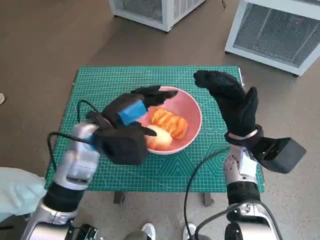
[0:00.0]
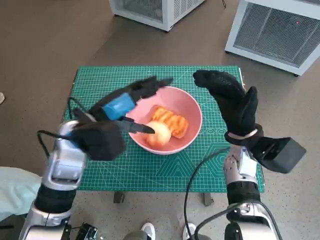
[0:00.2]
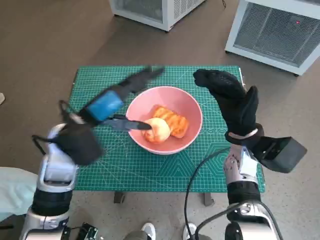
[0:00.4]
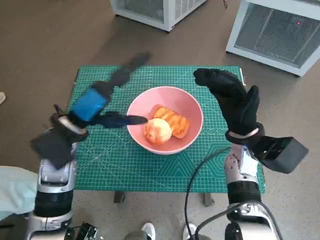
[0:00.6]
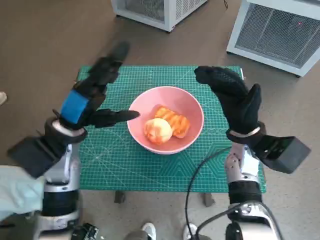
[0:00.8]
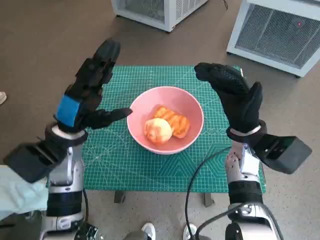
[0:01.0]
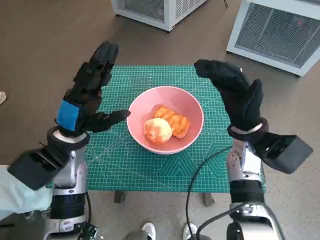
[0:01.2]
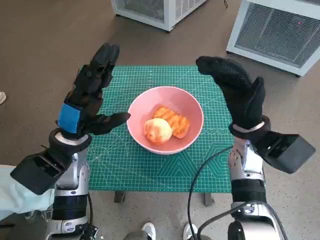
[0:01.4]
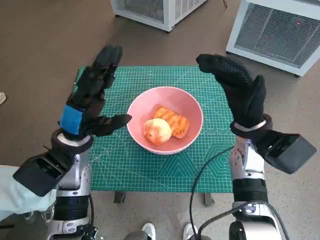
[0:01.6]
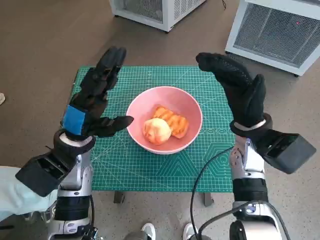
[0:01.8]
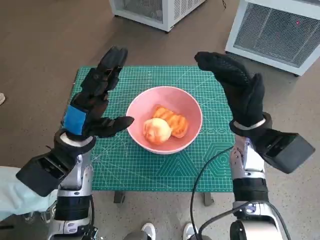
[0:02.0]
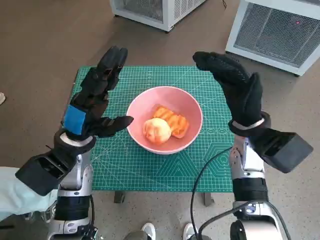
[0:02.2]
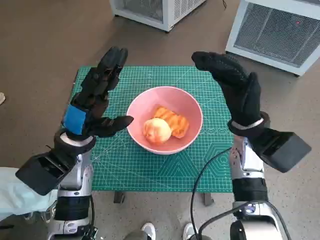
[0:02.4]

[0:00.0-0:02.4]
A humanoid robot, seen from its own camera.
Task of the whole recording: Push the bowl into the center of the table and put the bread into the bowl.
0:00.0 to 0:01.2: The left hand goes roughly 5 cm to the left.
0:01.2 to 0:02.4: The hands stay close to where they were, moving slightly.

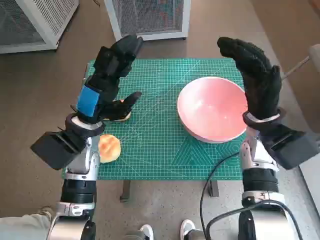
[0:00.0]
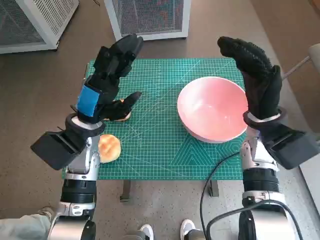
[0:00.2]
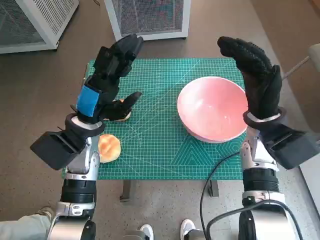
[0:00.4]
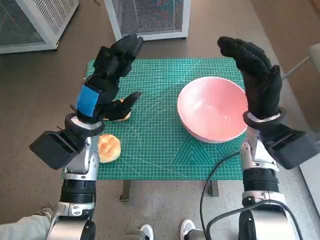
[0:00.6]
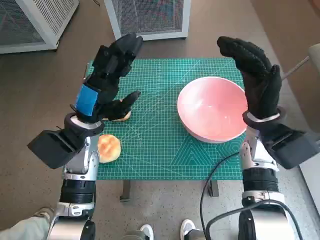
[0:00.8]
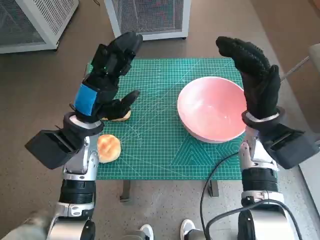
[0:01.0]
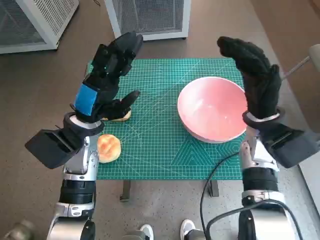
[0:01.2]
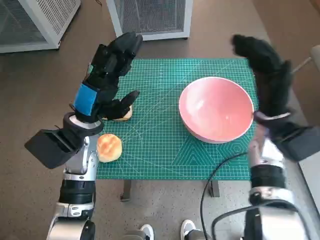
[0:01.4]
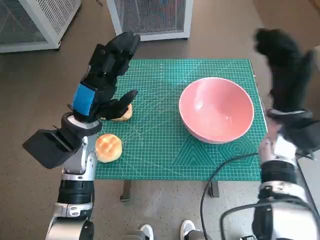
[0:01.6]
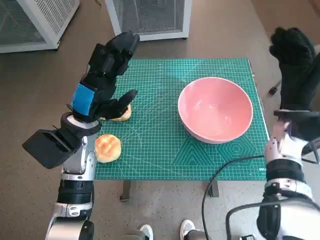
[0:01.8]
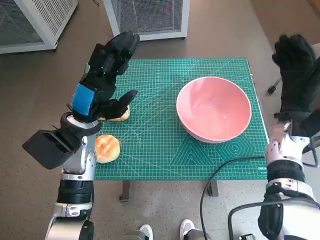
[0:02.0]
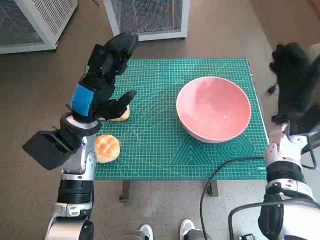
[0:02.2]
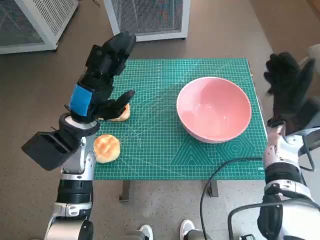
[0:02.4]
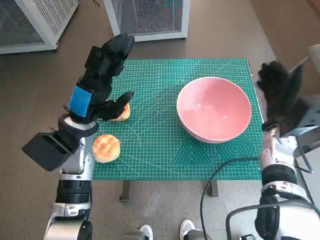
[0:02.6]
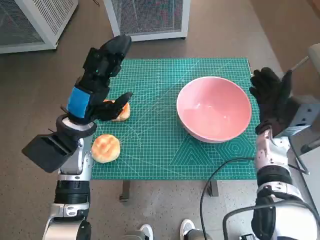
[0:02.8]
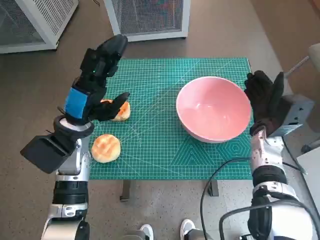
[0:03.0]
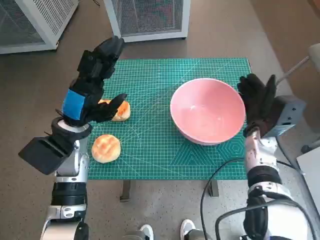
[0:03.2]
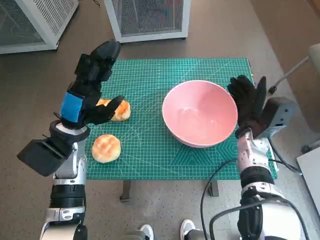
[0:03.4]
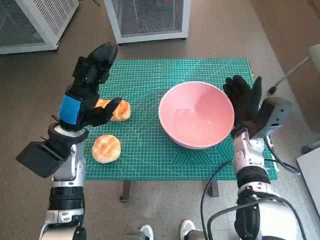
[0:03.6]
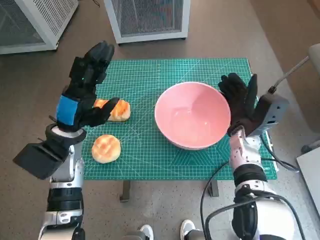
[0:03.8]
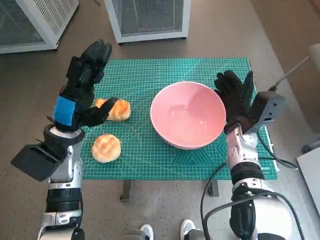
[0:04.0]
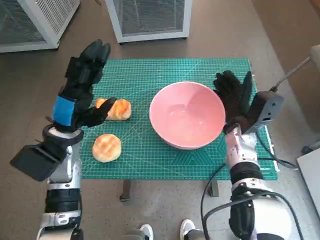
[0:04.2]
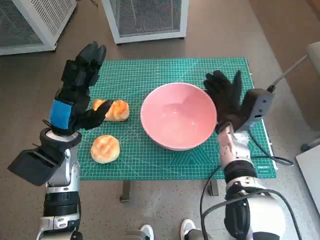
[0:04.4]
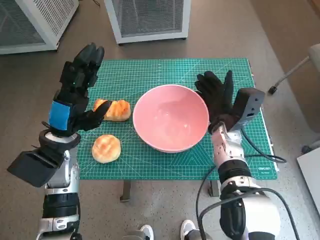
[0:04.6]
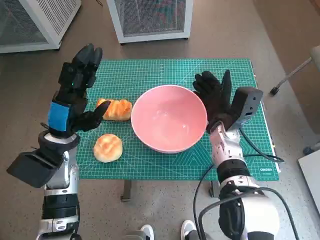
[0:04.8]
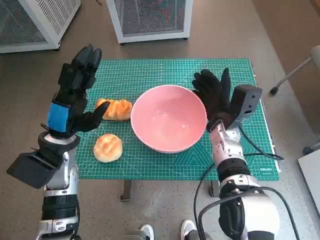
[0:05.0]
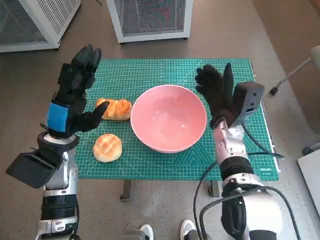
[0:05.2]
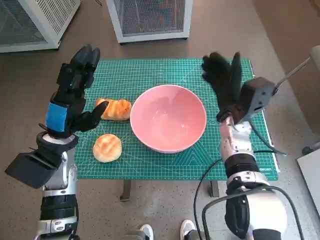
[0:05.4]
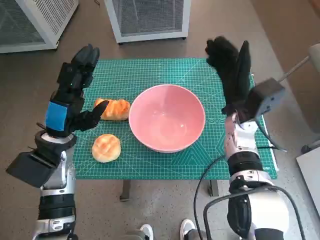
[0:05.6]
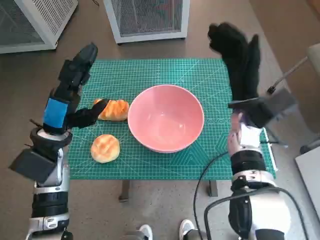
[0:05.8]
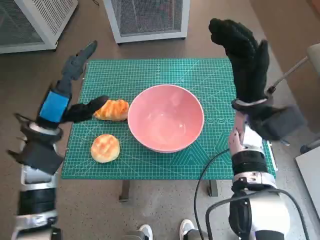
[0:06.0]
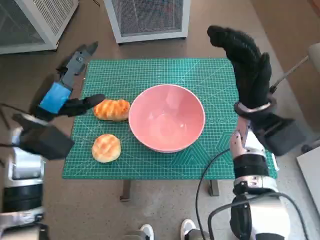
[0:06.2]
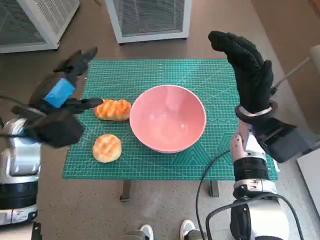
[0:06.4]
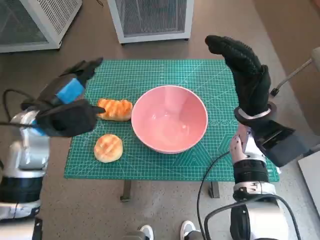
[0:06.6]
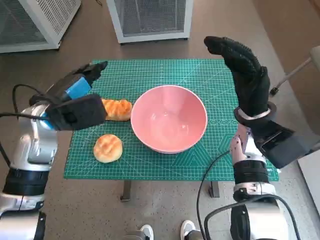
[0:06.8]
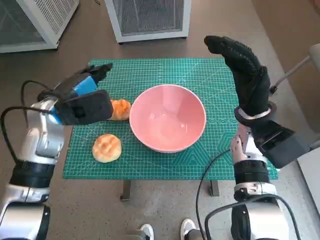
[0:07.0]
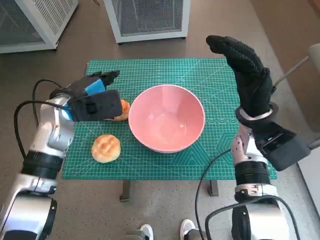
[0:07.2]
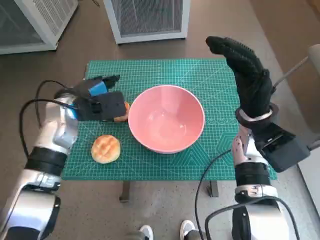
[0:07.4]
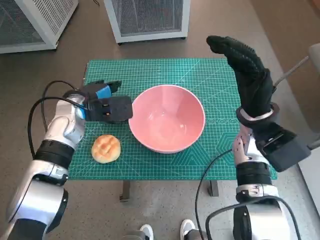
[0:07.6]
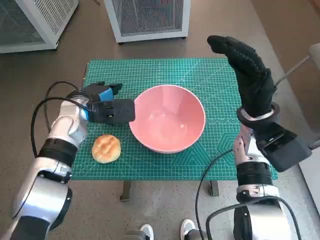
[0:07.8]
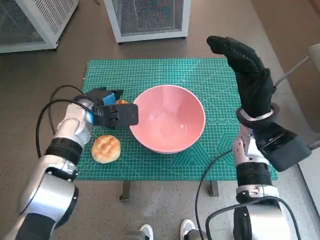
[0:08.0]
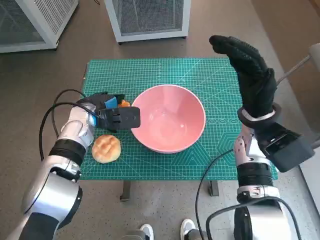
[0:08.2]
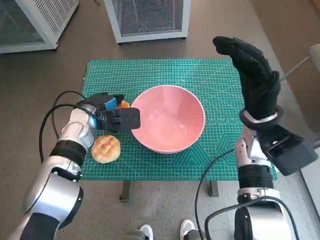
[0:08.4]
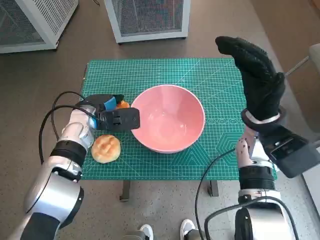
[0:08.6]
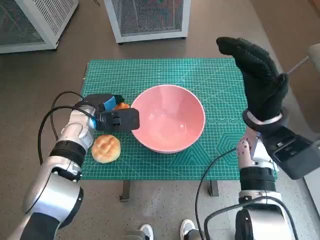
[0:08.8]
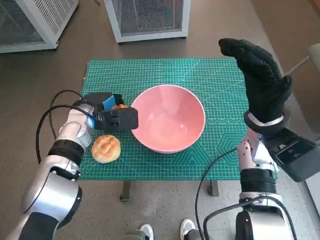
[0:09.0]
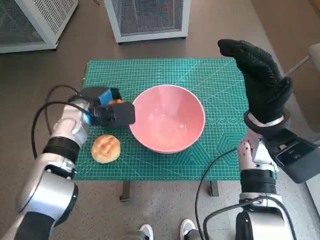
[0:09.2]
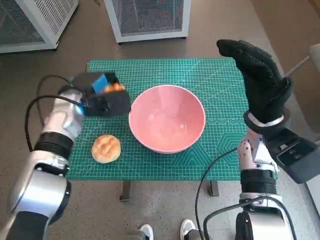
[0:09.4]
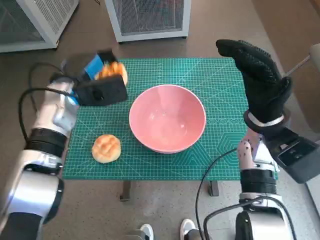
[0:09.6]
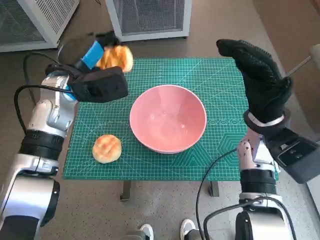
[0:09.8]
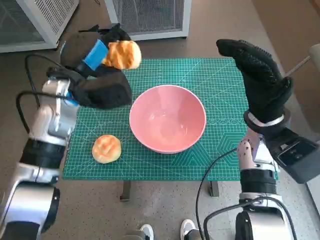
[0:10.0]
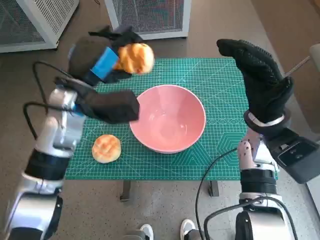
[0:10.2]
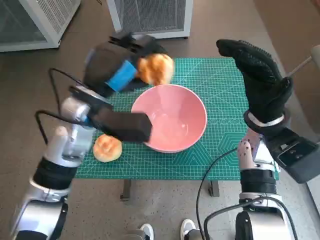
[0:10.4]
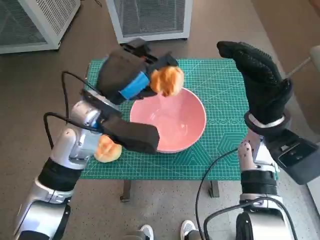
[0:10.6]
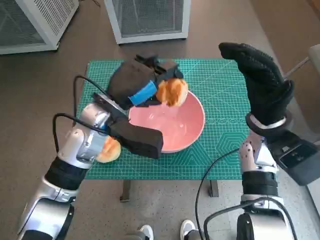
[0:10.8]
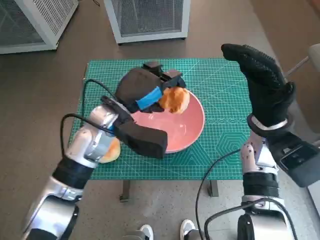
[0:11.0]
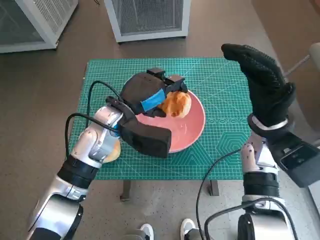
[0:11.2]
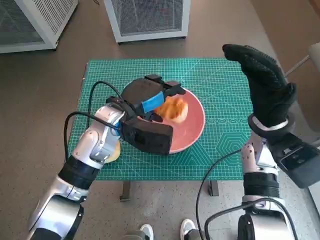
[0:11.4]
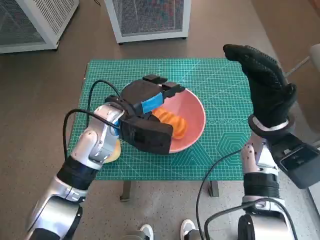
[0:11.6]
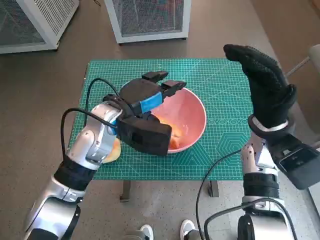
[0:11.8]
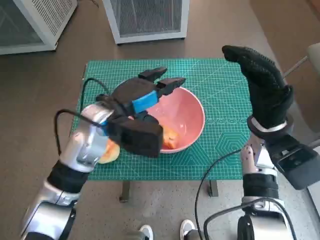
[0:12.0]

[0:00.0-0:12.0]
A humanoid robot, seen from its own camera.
Task of the whole recording: Push the bowl into the center of the table and put the bread into the bowl.
Step, 0:00.0 to 0:05.2: Move the pink bowl to the center of table with right hand.
Step, 0:05.4 to 0:08.8: Grasp the long bread with left hand.
Step, 0:09.0 to 0:11.4: Place the long bread in pink bowl with left hand.
0:01.6 to 0:03.0: The right hand heads downward, covering about 5 cm.
0:03.0 to 0:04.4: The right hand shifts approximately 5 cm to the left.
0:04.4 to 0:06.0: The right hand goes roughly 10 cm upward.
0:06.0 to 0:07.6: The left hand goes about 10 cm forward.
0:09.0 to 0:10.4: The left hand travels upward by approximately 10 cm.

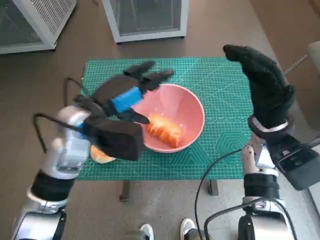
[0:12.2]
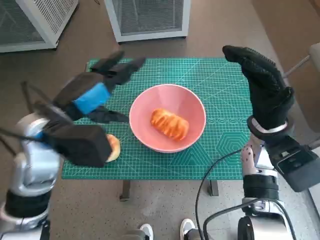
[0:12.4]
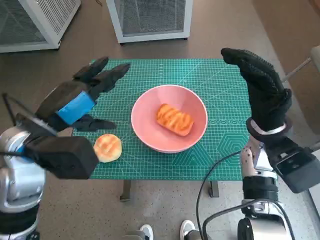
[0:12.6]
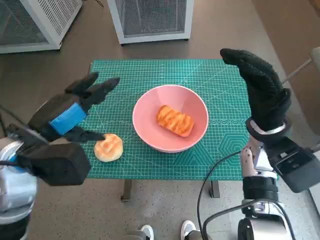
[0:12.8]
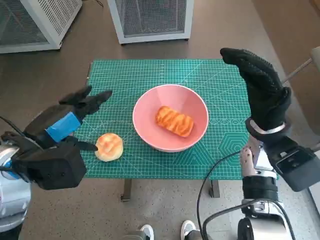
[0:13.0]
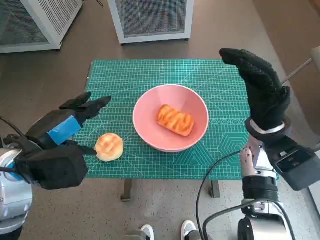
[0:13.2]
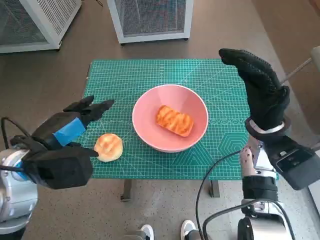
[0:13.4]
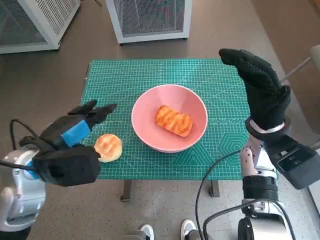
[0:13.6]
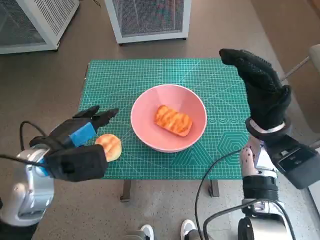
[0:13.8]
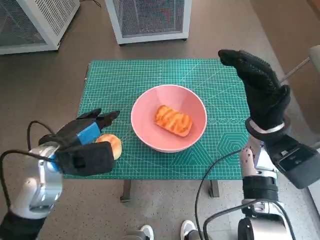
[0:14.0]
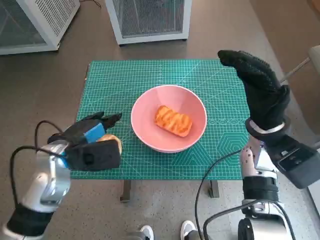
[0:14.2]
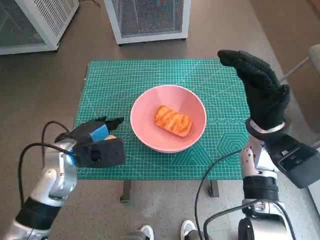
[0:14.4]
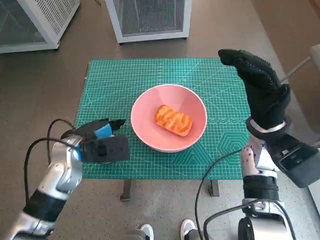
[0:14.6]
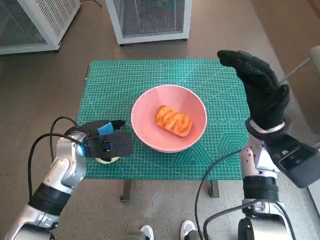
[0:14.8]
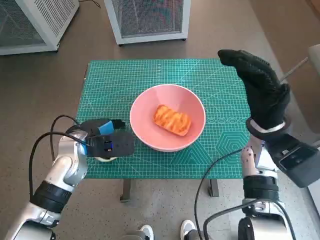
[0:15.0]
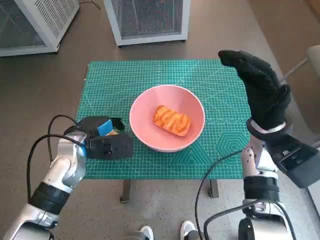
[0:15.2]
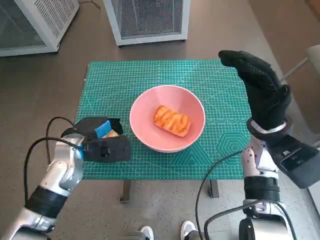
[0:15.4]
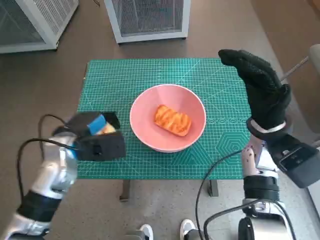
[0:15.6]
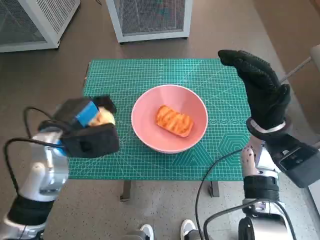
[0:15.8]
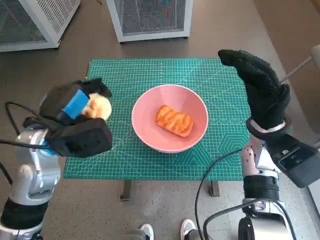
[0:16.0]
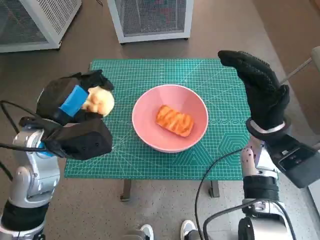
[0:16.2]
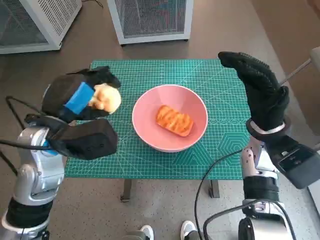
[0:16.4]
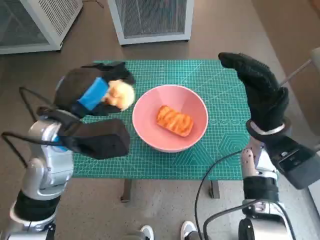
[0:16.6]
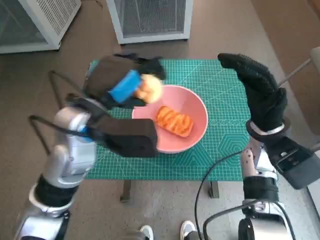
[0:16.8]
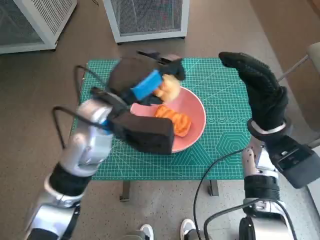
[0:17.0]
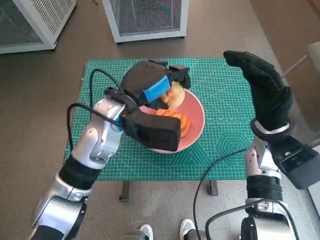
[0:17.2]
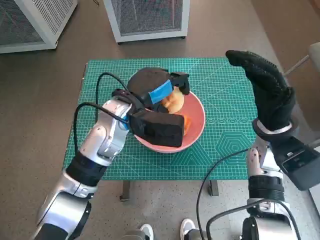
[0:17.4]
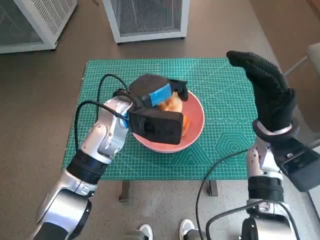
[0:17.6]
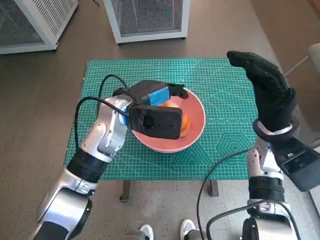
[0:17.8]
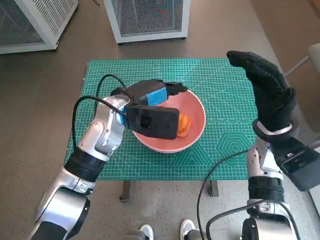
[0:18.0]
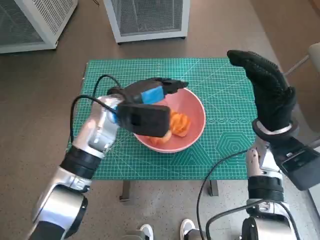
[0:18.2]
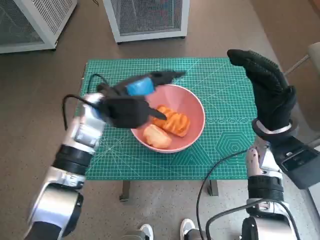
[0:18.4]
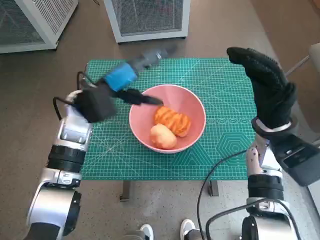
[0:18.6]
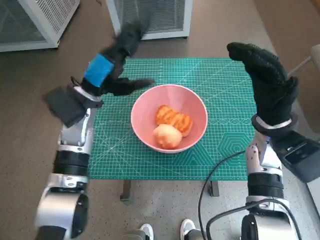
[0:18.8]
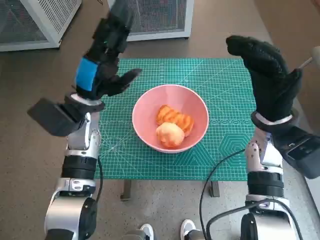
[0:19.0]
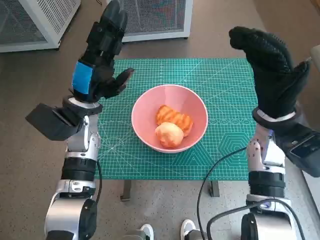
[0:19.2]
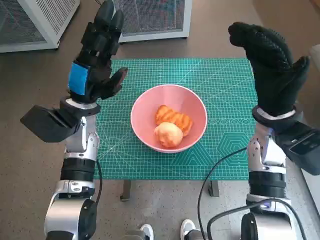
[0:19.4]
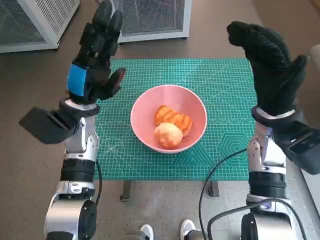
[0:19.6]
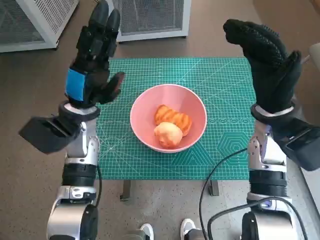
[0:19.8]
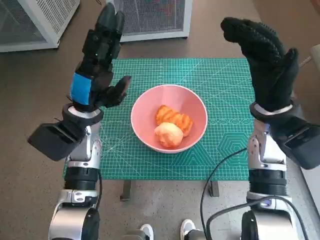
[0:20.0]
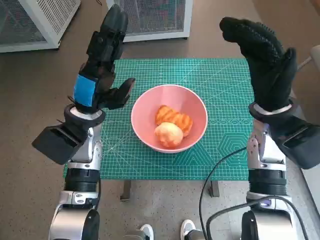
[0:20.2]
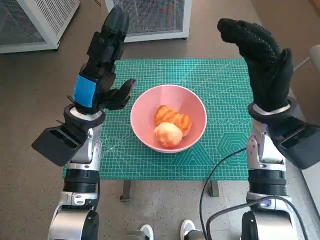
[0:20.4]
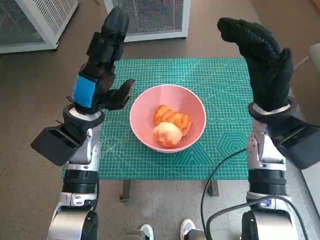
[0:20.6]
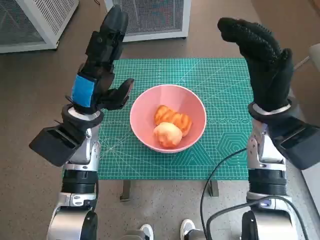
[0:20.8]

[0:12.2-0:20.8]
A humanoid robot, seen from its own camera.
Task of the whole recording: Push the bowl into the center of the table and put the bread into the bowl.
Step, 0:12.2 to 0:15.2: Grasp the round bread with left hand.
Step, 0:15.4 to 0:17.8: Place the round bread in pink bowl with left hand.
0:12.2 to 0:13.6: The left hand heads to the left and backward, covering roughly 10 cm.
0:13.6 to 0:15.0: The left hand heads downward and forward, covering some 10 cm.
0:15.0 to 0:16.6: The left hand is displaced upward by roughly 10 cm.
0:16.6 to 0:18.0: The left hand shifts approximately 10 cm to the right and forward.
0:18.0 to 0:19.4: The left hand shifts approximately 10 cm to the left.
